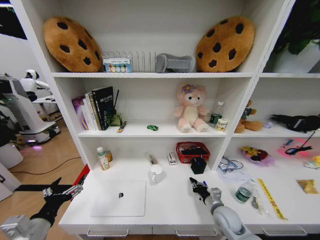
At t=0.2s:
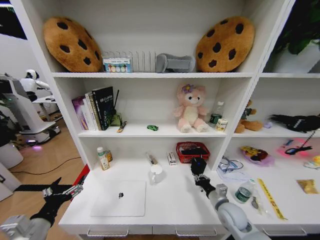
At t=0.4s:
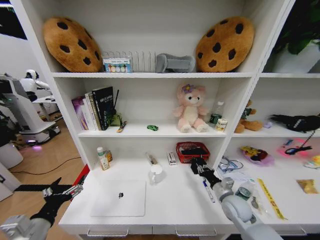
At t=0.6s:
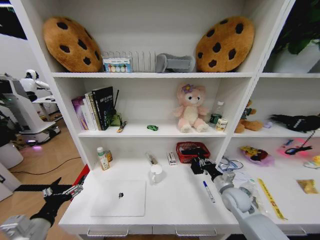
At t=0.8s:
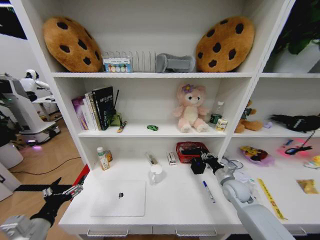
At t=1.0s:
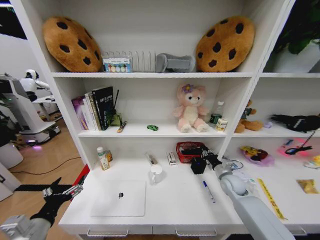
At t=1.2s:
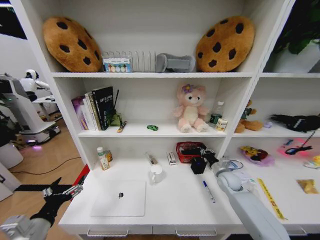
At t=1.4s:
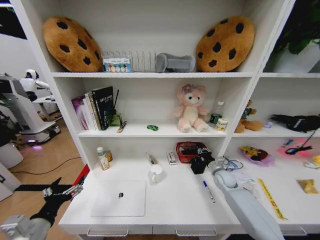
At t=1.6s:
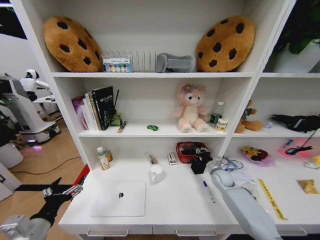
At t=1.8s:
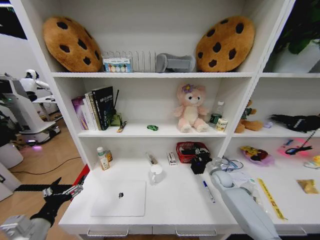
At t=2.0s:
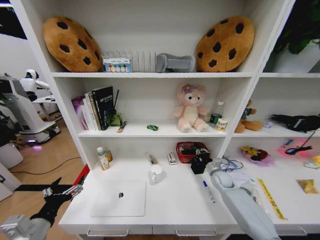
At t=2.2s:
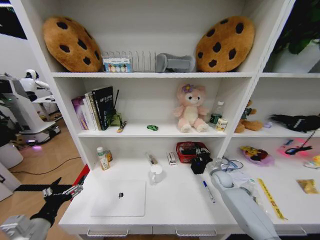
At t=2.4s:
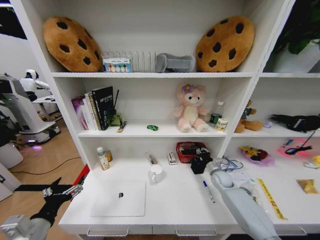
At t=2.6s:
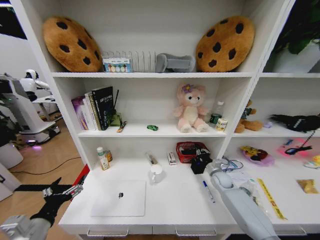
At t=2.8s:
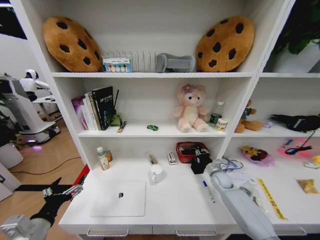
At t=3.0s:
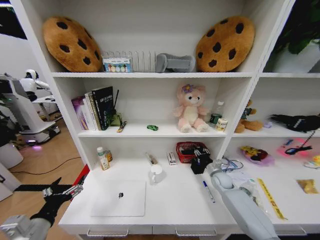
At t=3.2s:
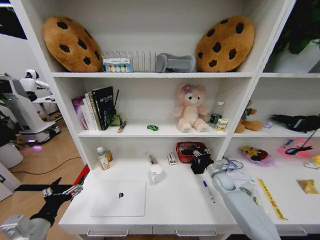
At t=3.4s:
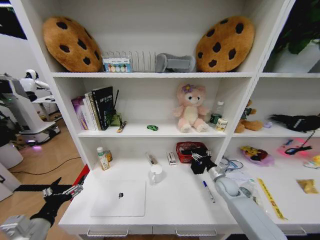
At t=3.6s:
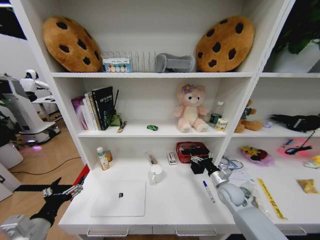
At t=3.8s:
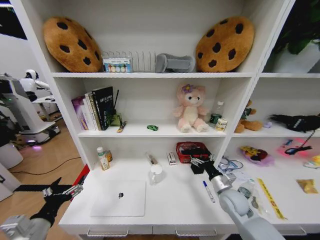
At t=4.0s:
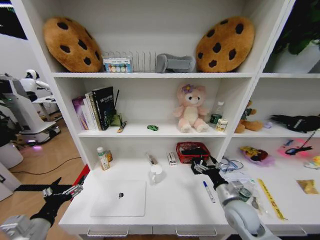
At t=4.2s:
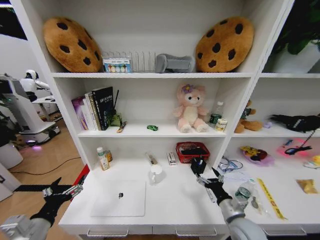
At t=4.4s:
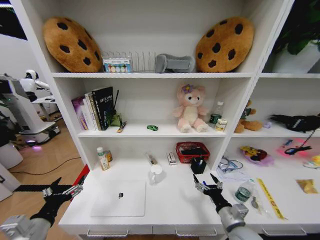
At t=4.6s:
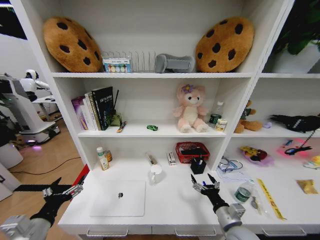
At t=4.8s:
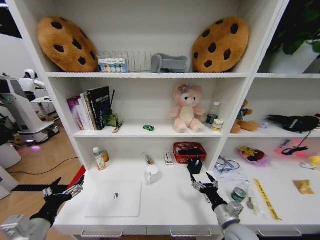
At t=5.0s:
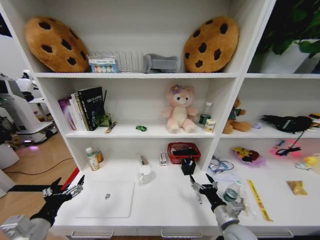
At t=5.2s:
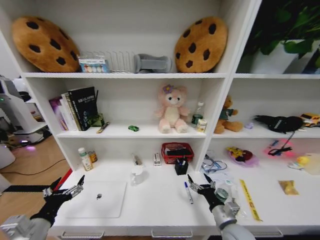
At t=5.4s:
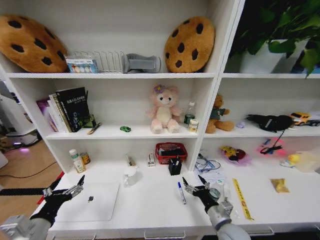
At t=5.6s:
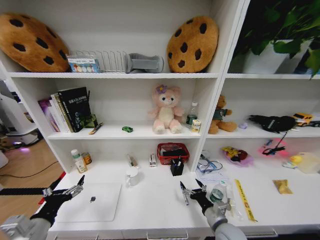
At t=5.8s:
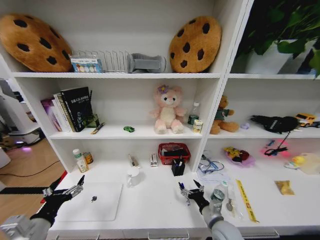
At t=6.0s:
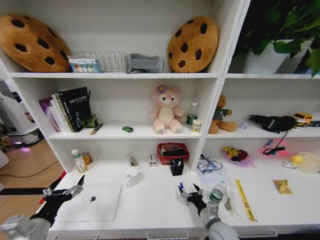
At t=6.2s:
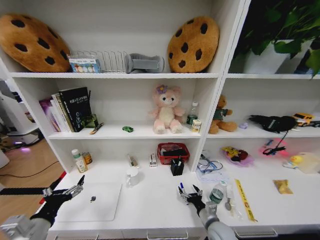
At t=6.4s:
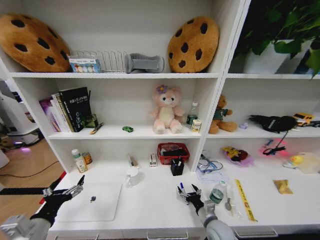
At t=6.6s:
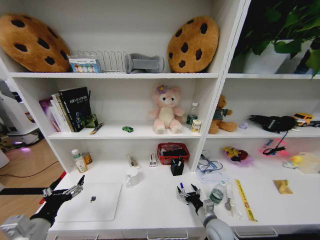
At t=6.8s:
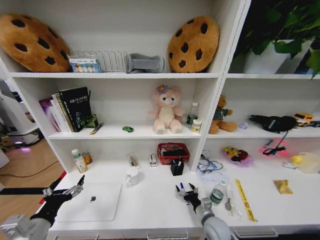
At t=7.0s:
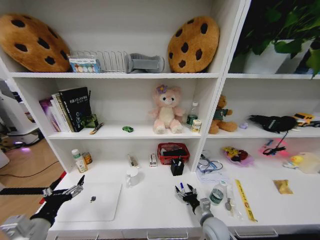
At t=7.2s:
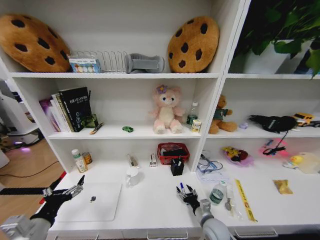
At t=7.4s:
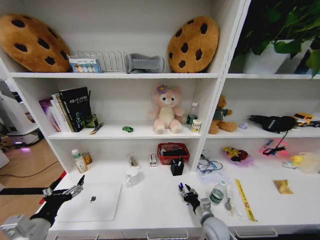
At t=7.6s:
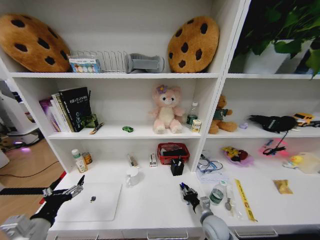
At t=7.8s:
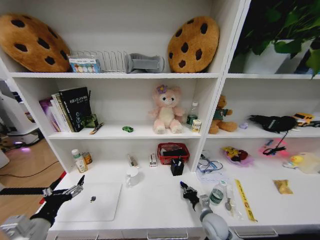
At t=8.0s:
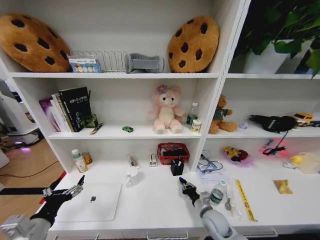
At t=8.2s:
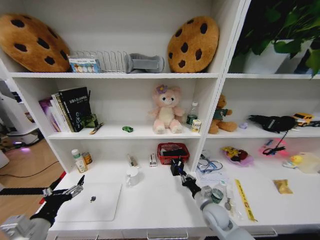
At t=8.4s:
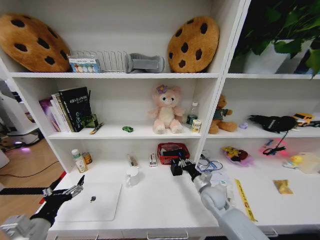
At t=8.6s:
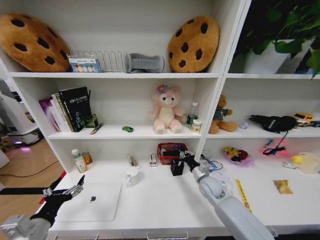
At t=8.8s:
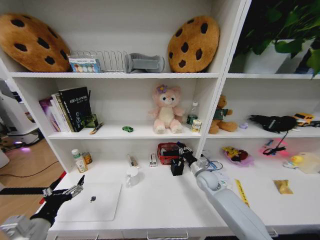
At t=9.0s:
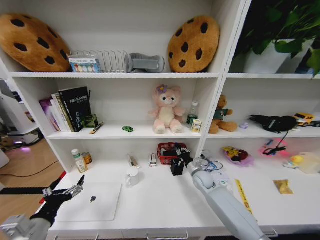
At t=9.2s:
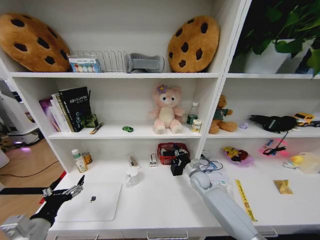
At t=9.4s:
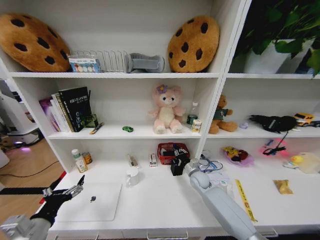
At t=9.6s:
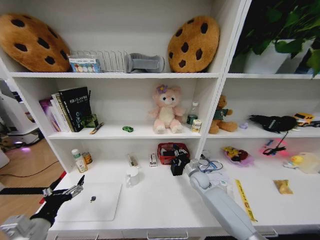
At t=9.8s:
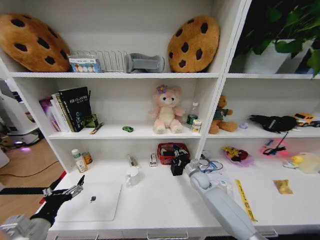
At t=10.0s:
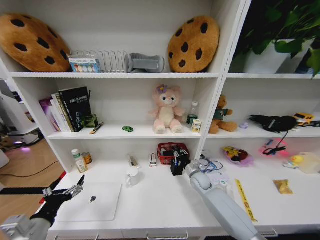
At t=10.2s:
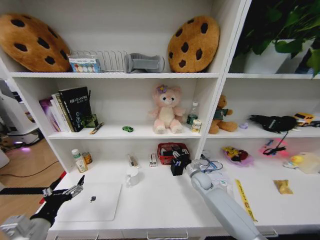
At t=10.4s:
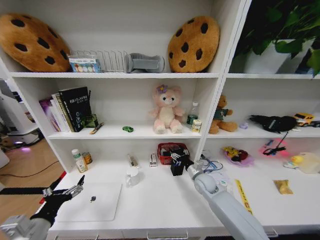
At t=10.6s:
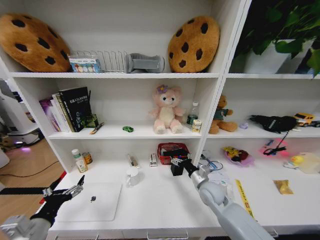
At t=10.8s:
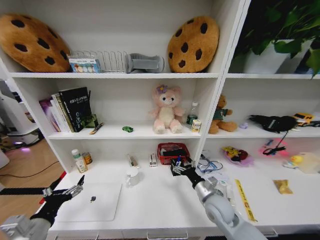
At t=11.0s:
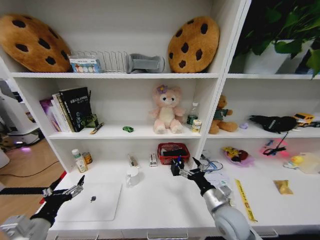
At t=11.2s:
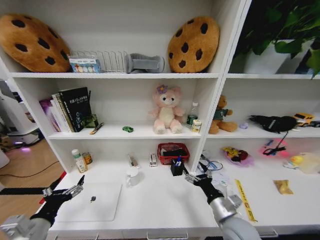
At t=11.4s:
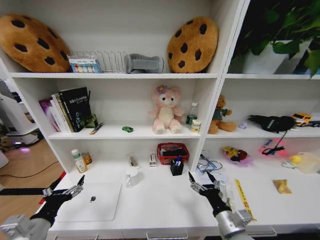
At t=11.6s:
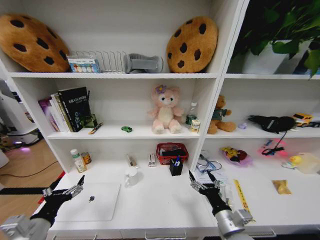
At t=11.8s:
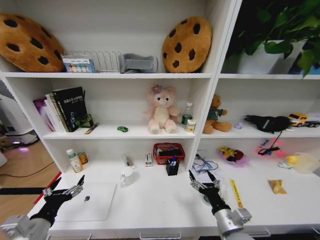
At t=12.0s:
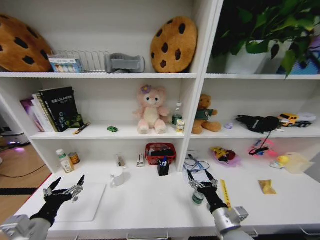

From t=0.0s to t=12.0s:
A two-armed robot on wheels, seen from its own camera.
Task of the whole recording: Organize the objects on the table.
From t=0.0s to t=1.6s: The right gripper travels forward by roughly 15 cm.
From t=1.6s to t=3.0s: The grippers stay close to where they were, moving slightly.
From t=3.0s to t=4.4s: The right gripper moves backward, roughly 25 cm, and opens its fingers.
From t=4.4s to t=6.0s: The right gripper shifts about 5 cm downward.
From t=6.0s to t=7.6s: The right gripper closes.
From t=7.6s to t=9.0s: The right gripper travels forward by some 20 cm.
From t=9.0s to t=10.4s: The right gripper opens its fingers.
From t=10.4s to t=12.0s: The right gripper goes about 25 cm backward.

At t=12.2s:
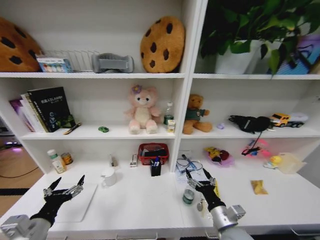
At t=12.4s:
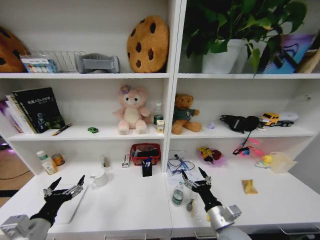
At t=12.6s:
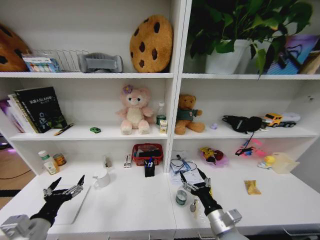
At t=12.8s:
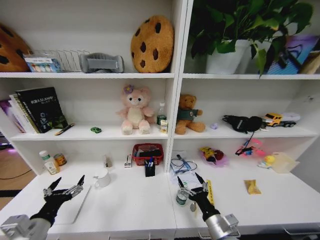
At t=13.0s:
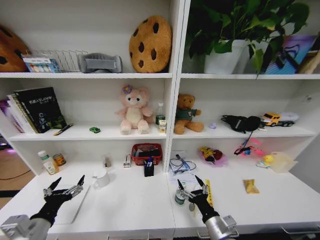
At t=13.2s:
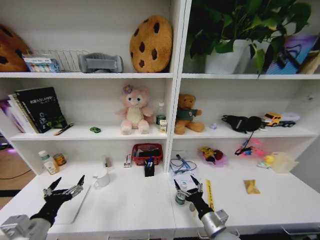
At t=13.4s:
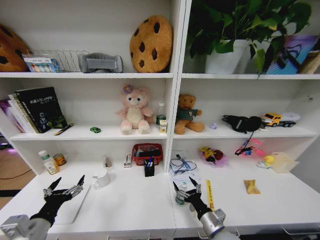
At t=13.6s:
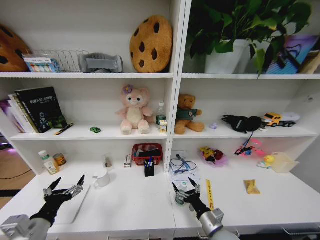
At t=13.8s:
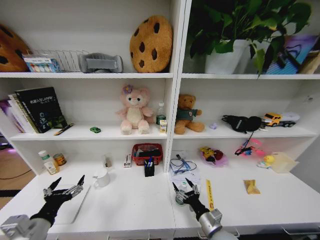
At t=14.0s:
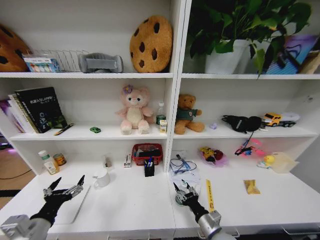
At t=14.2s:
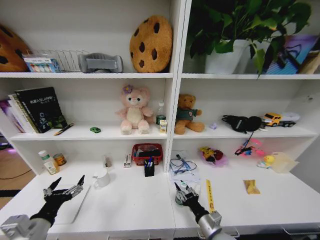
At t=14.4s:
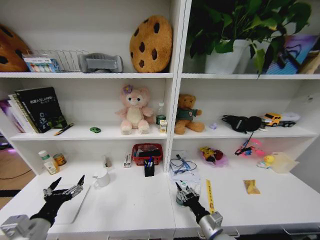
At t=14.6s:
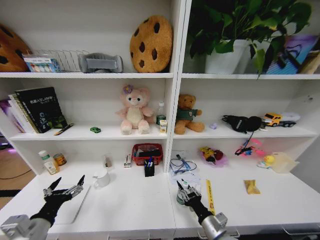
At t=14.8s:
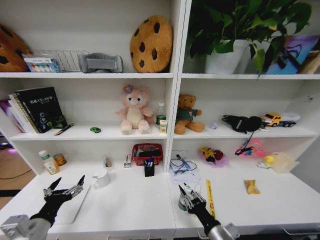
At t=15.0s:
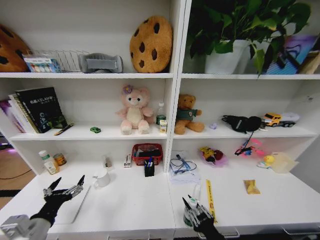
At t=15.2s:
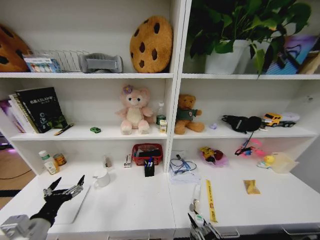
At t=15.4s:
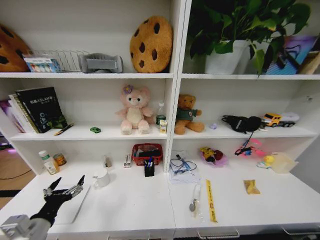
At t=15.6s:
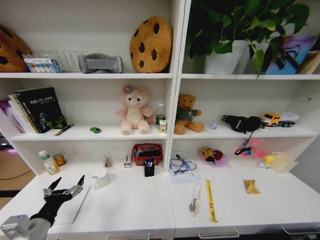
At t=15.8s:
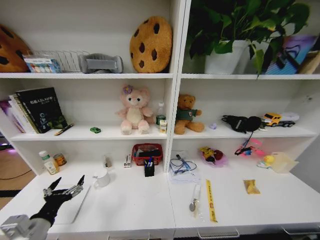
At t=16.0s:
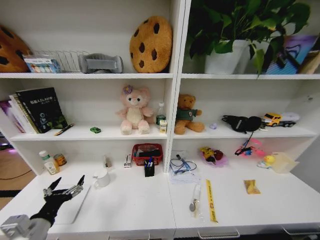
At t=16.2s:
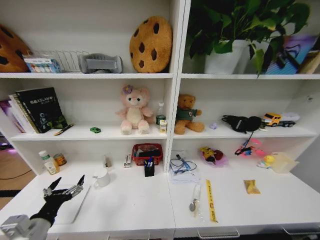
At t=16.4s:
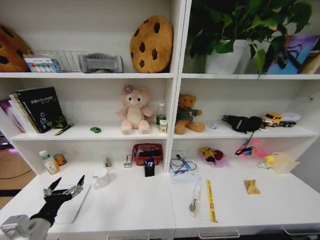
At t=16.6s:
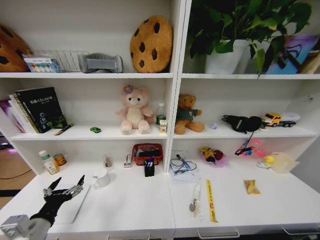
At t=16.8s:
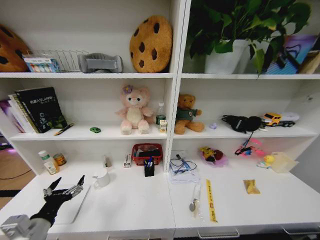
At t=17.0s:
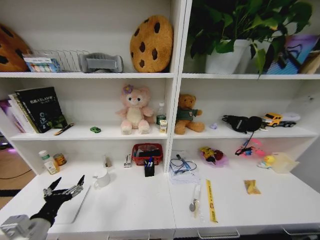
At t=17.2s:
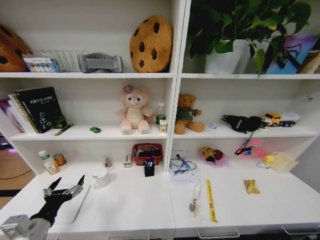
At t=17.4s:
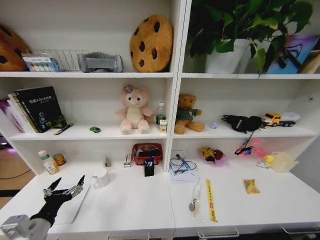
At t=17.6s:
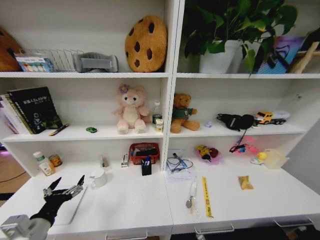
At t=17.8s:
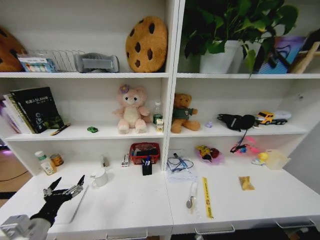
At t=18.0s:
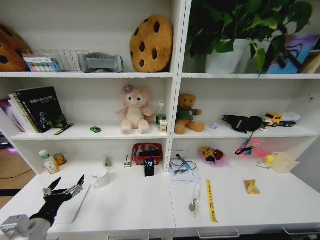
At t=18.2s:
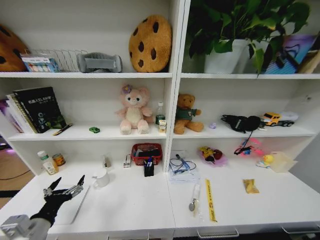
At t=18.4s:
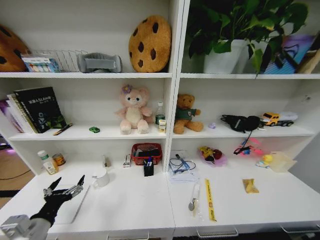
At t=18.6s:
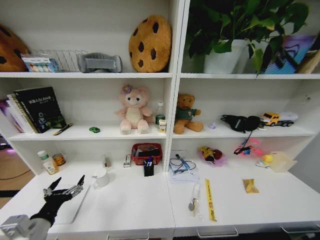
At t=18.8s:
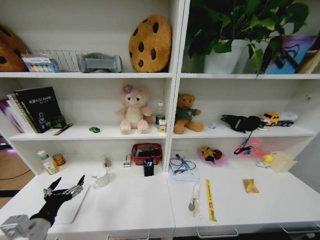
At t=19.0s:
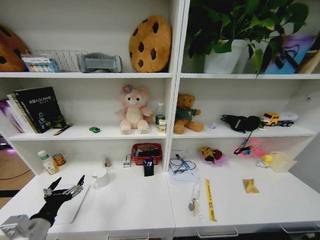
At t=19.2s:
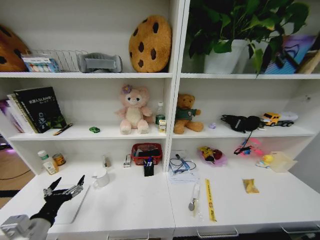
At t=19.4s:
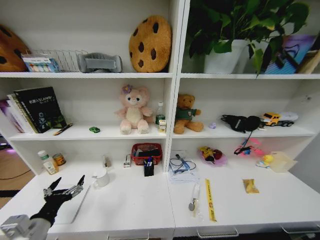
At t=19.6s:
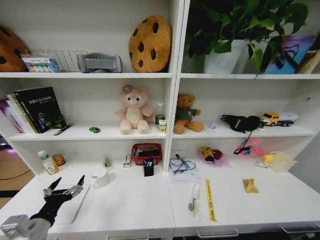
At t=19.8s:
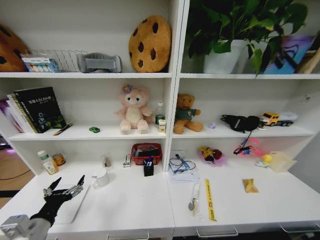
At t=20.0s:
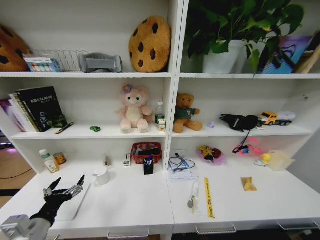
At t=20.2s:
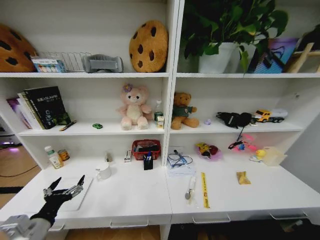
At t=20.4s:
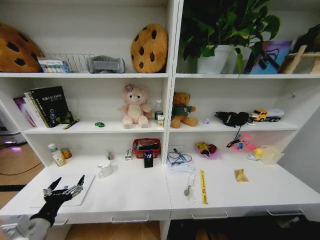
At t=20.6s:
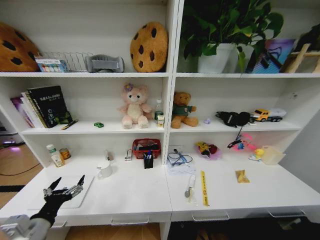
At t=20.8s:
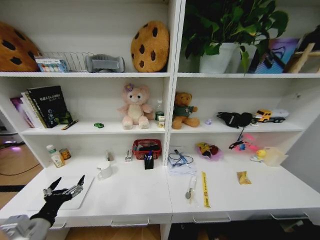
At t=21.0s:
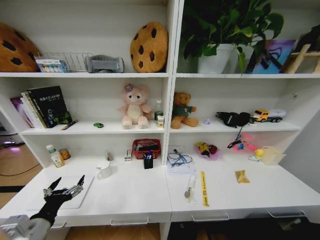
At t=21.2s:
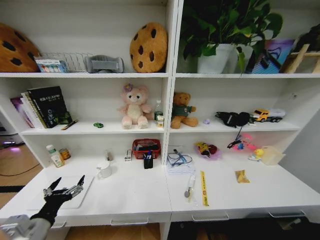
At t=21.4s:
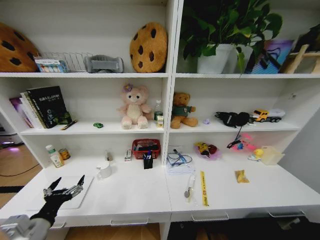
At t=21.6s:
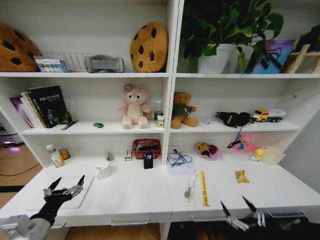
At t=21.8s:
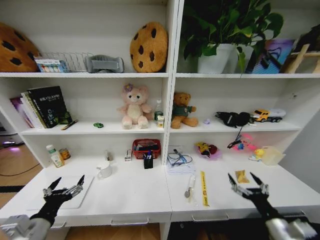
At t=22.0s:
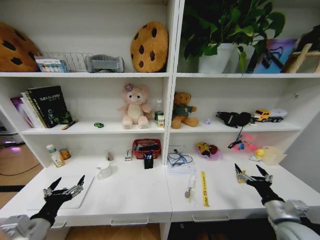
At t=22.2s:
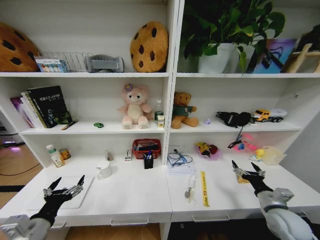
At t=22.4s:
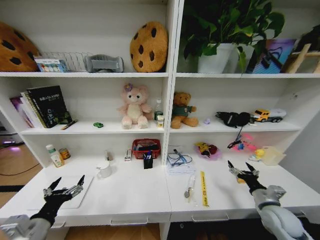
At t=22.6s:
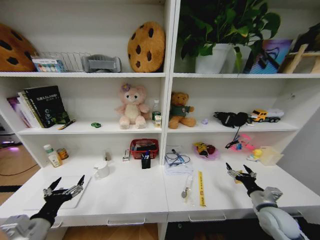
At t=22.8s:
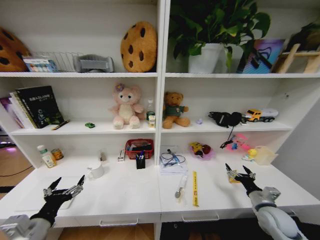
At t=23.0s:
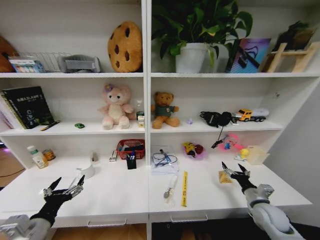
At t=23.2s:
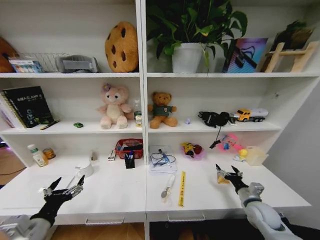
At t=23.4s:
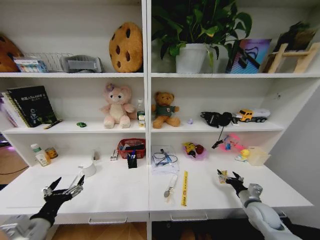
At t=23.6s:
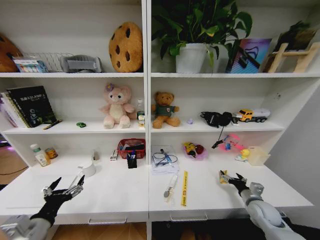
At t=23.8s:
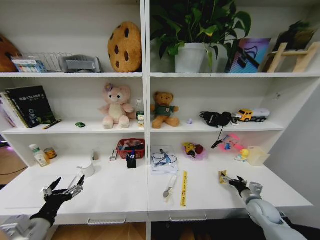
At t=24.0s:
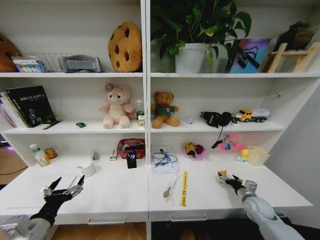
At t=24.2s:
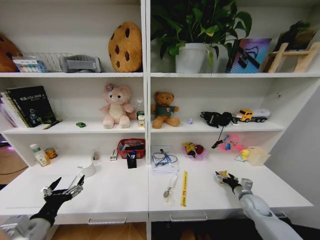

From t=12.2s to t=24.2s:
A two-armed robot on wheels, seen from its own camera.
Task of the whole recording: Organize the objects on the table.
From t=12.2s to t=13.8s: The right gripper moves downward, roughly 5 cm.
From t=13.8s to t=15.2s: The right gripper shifts some 15 cm backward, and closes.
From t=16.6s to t=18.2s: The right gripper moves forward, downward and to the left, some 20 cm.
From t=18.2s to t=19.8s: The right gripper travels backward by about 10 cm, and opens up.
From t=19.8s to t=21.2s: The right gripper heads upward and backward, covering approximately 25 cm.
From t=21.2s to t=22.6s: The right gripper is displaced forward and upward by some 35 cm.
From t=22.6s to t=24.2s: The right gripper shifts roughly 10 cm forward and downward.
